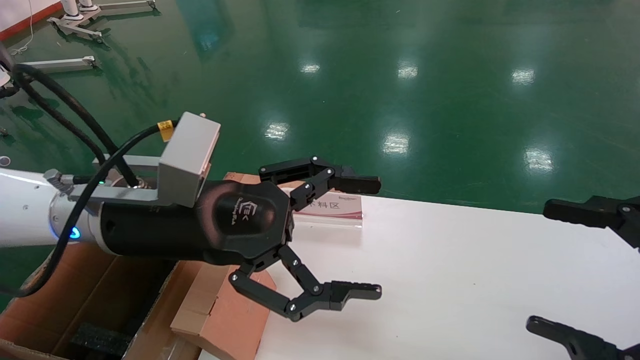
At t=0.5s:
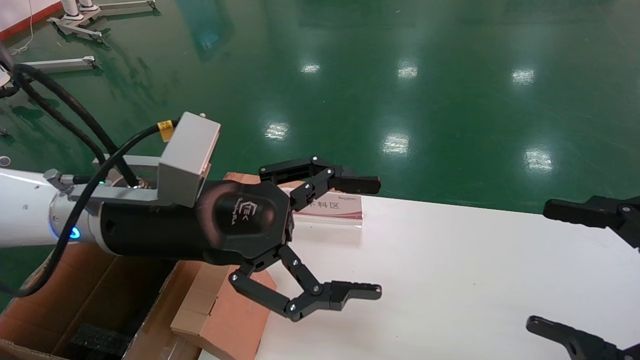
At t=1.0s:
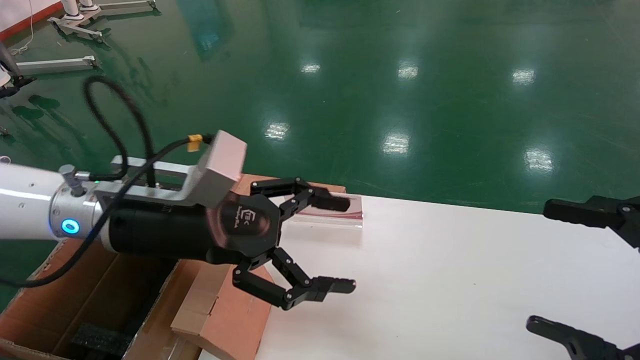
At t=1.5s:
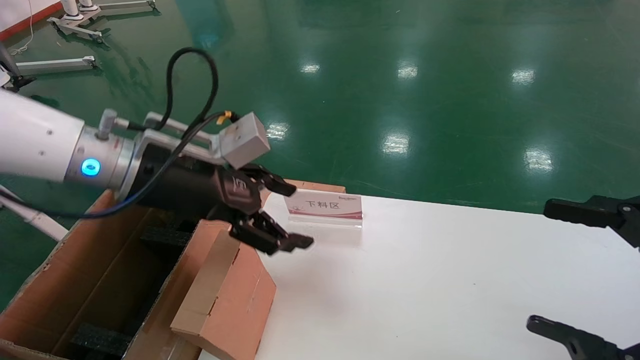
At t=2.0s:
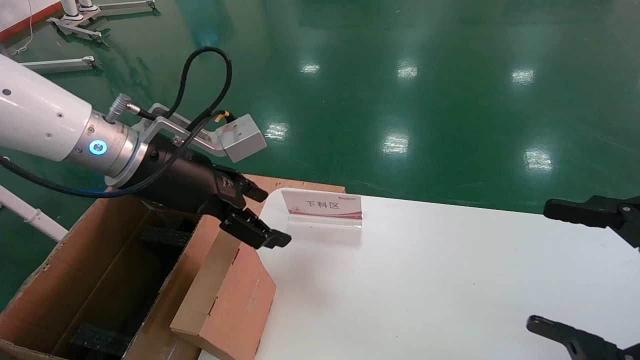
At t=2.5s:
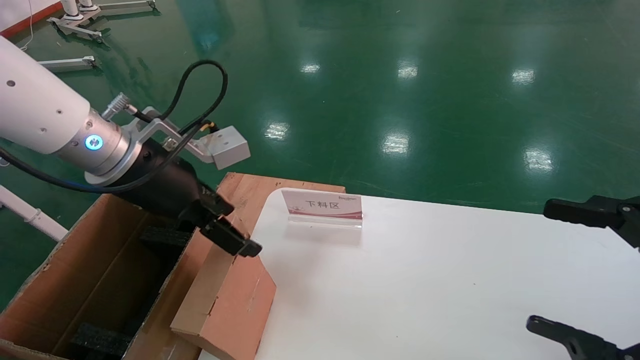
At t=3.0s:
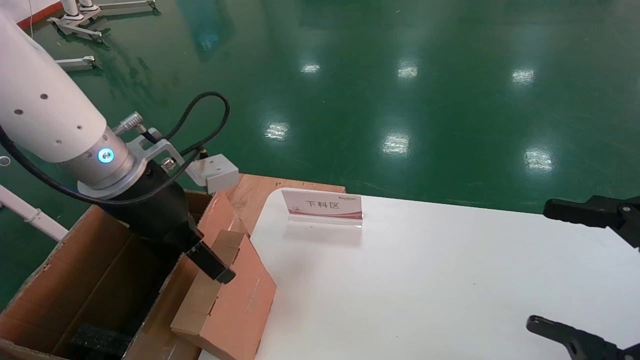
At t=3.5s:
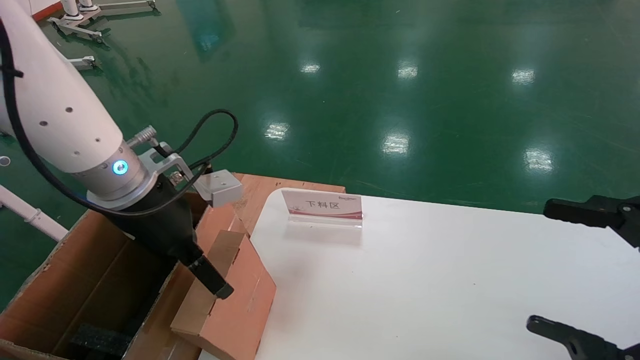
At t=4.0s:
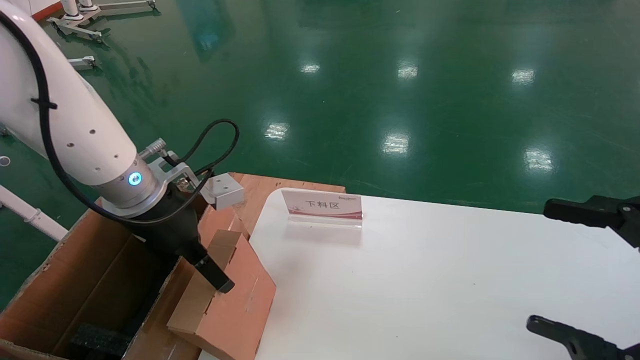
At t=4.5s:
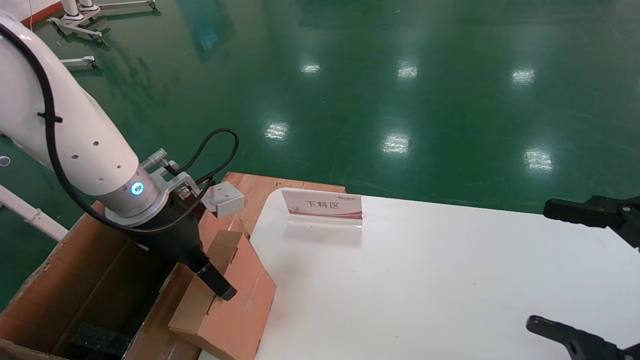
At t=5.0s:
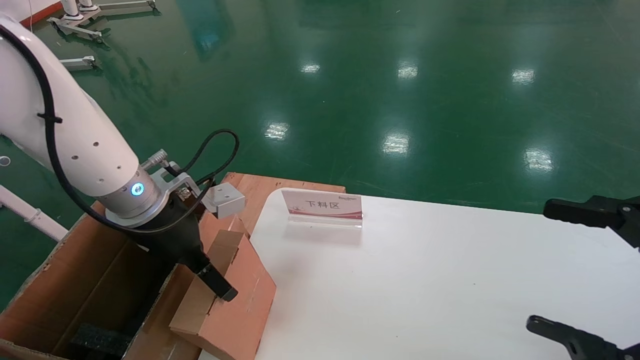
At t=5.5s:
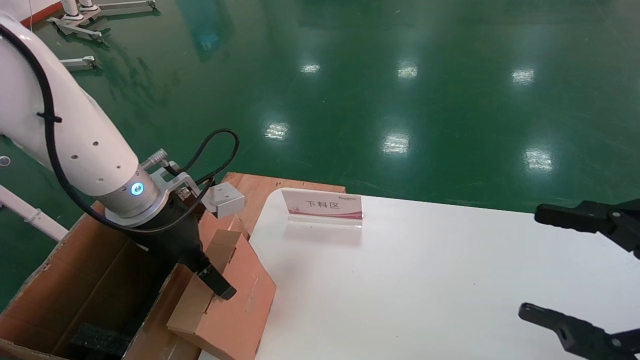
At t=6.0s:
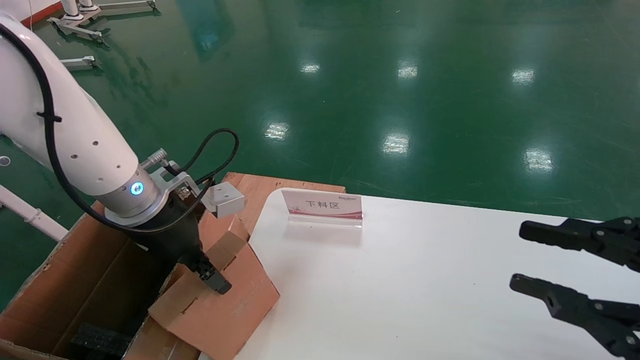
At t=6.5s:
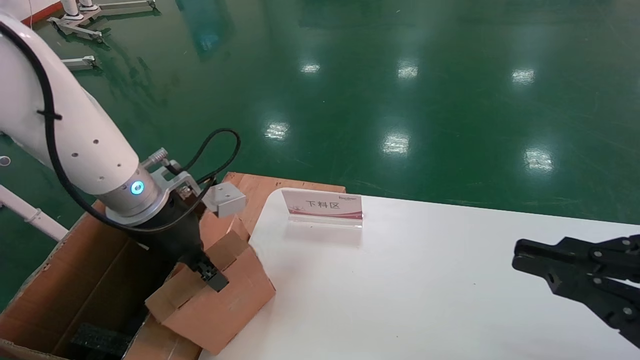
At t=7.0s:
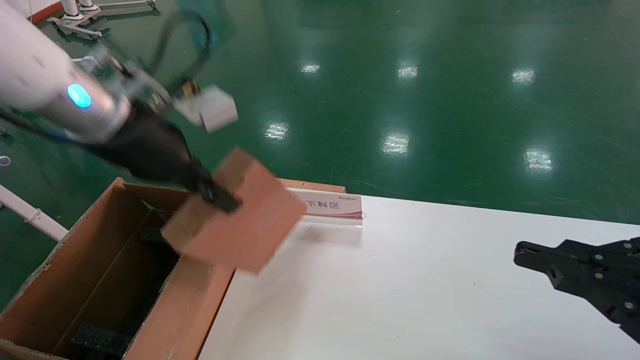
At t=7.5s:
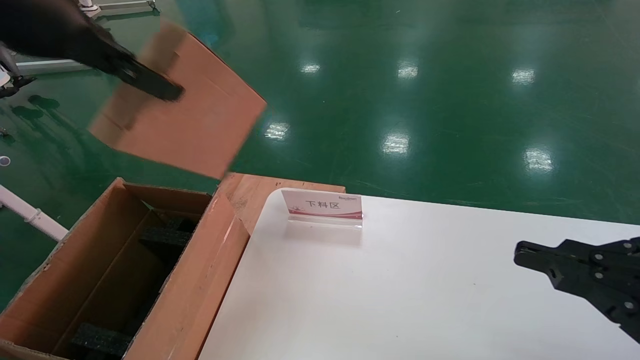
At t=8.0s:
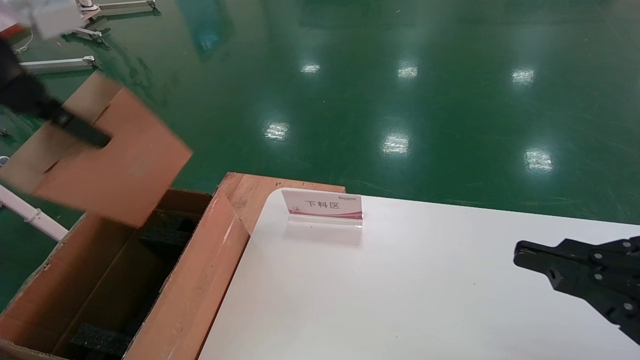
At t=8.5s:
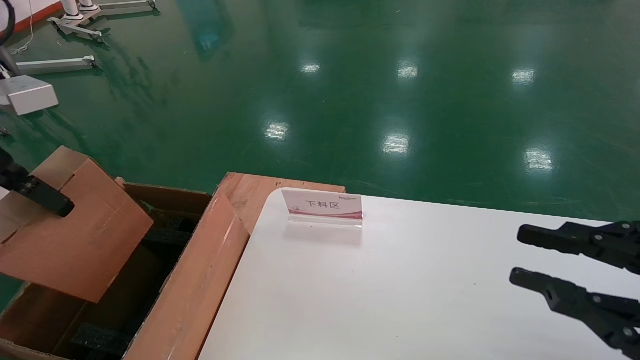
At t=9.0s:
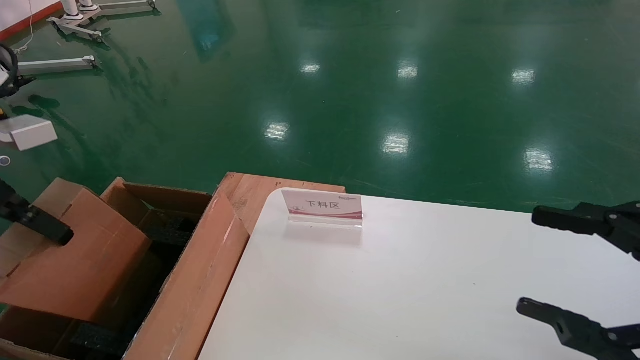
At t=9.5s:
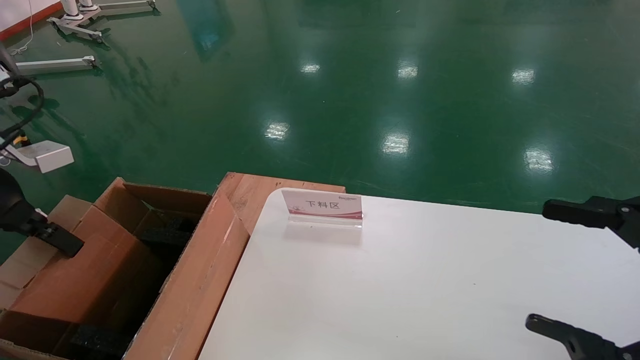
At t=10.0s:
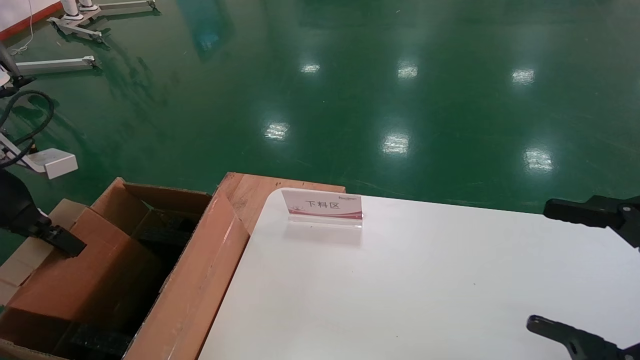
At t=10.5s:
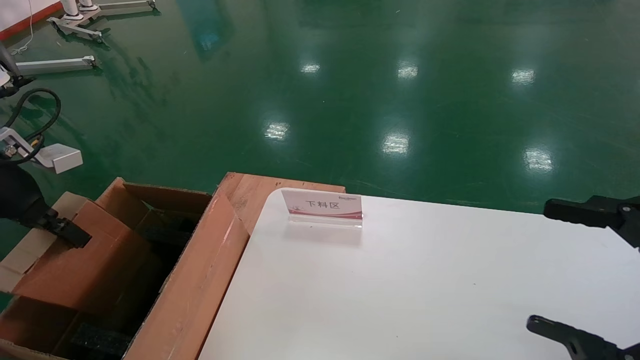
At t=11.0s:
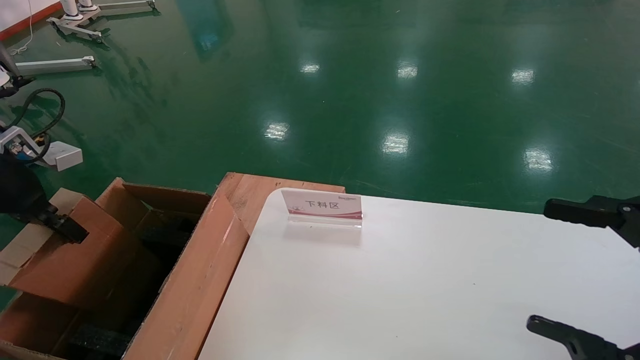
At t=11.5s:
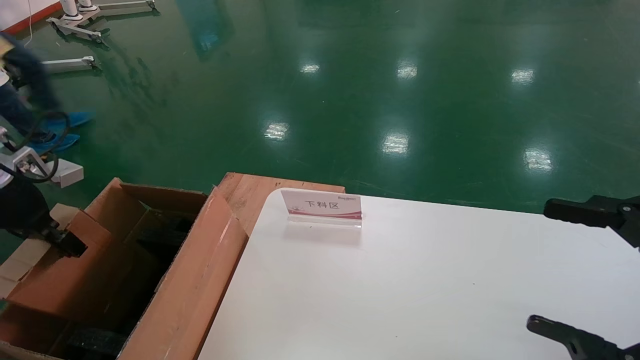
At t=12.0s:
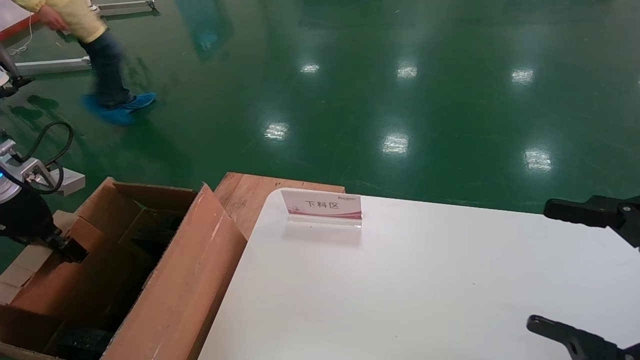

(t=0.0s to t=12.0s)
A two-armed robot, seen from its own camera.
Task of the whole recording: pick up the small cardboard box and load it into the large cardboard box.
Step, t=2.5s - t=11.0s: Pick up the mouse and power cord box.
t=0.0s - t=2.0s: The left gripper goes about 5 cm forward.
t=4.0s - t=6.0s: The right gripper closes up. Meanwhile the left gripper closes.
t=6.0s - t=8.0s: The left gripper travels upward, backward and to the left by some 25 cm, and closes, while the right gripper closes.
t=8.0s - t=10.0s: The right gripper opens its fingers. The left gripper shifts about 20 cm downward and to the left.
t=10.0s - t=12.0s: The left gripper heads downward, covering about 5 cm.

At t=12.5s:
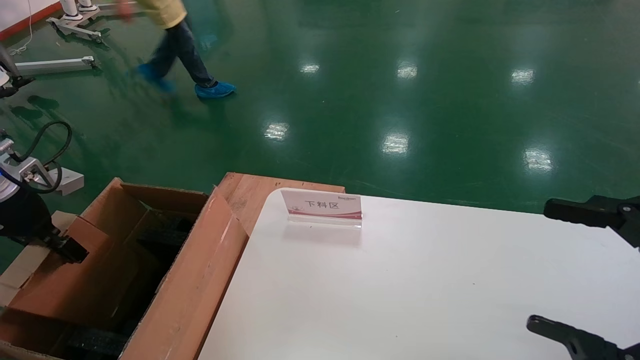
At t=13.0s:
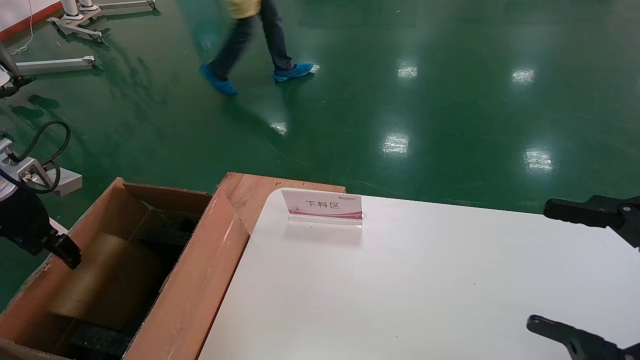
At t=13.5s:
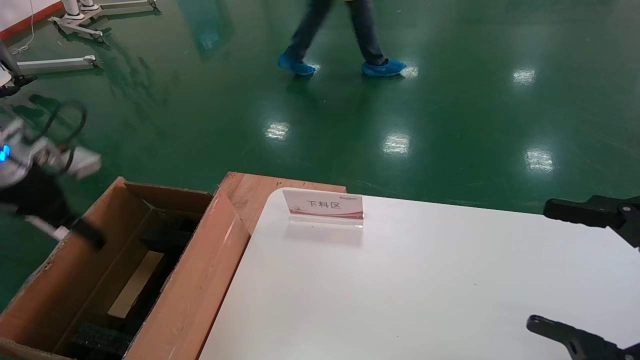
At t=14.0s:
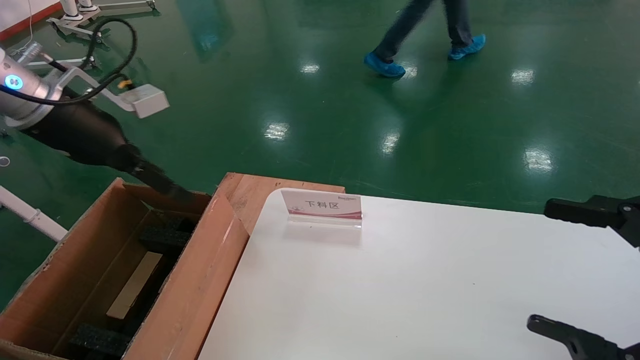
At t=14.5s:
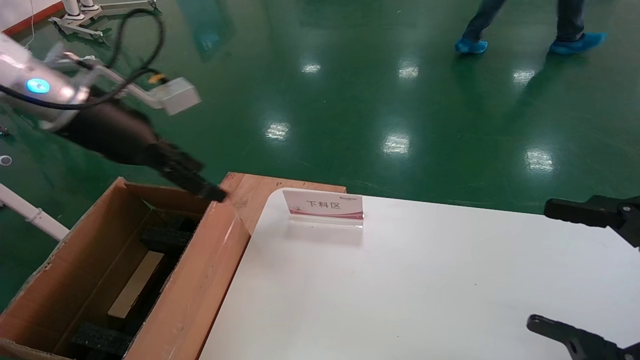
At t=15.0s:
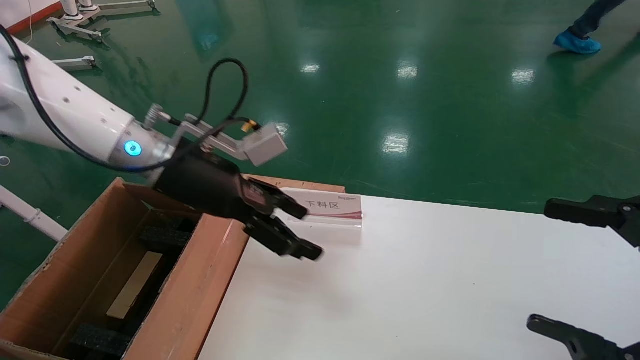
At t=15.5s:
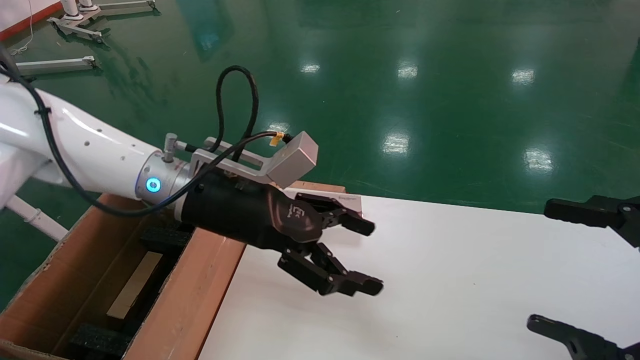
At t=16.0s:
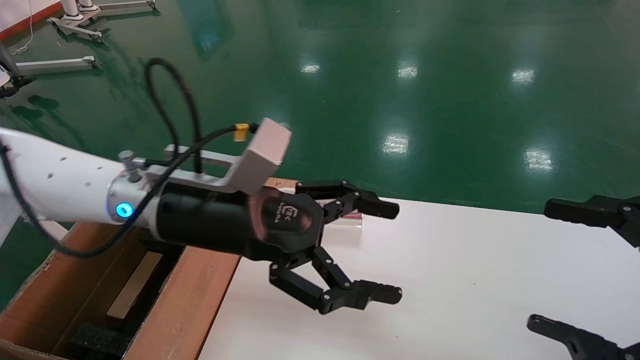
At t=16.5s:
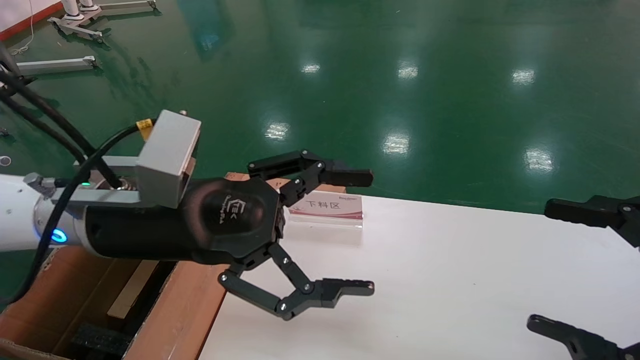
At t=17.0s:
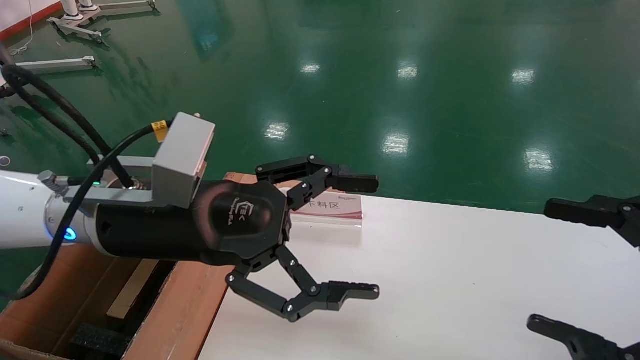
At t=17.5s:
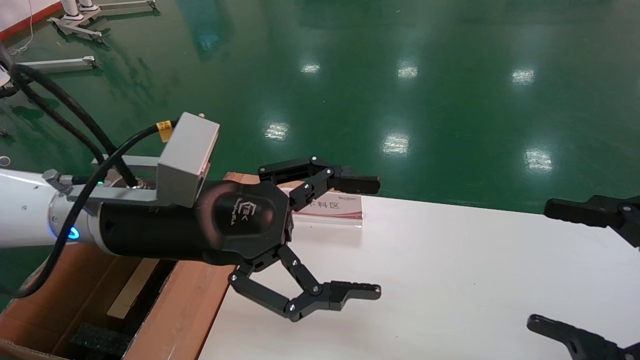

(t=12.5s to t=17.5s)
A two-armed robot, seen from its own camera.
Task of the whole recording: pick up the small cardboard box and load it into the large cardboard box.
Step, t=12.5s - t=17.5s: Place the mouse and power cord box into the case.
t=12.5s - t=15.0s: The left gripper travels to the right by roughly 30 cm, and opens.
t=15.0s - t=17.5s: The left gripper shifts some 10 cm backward.
